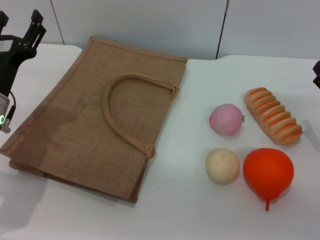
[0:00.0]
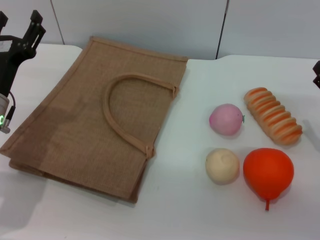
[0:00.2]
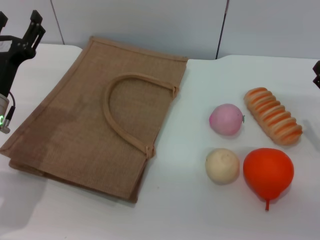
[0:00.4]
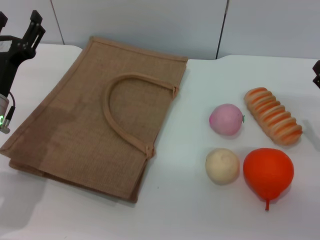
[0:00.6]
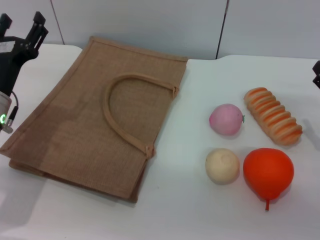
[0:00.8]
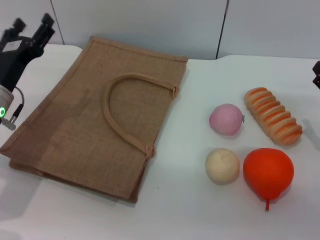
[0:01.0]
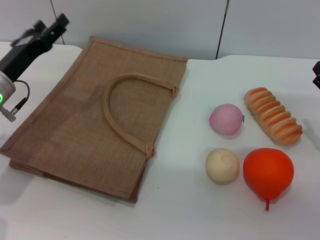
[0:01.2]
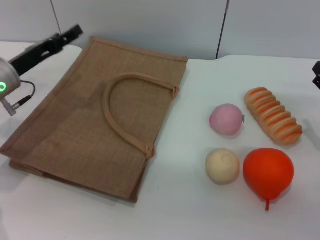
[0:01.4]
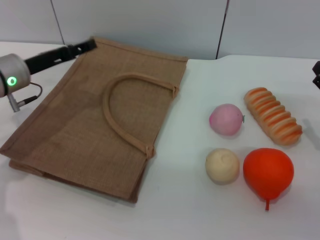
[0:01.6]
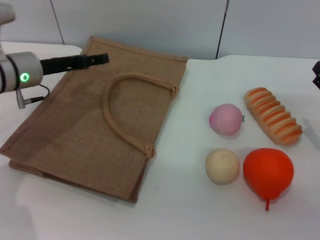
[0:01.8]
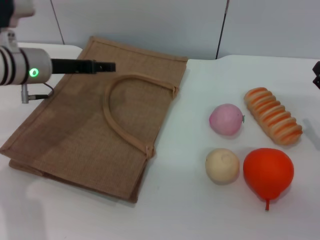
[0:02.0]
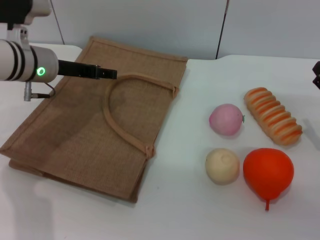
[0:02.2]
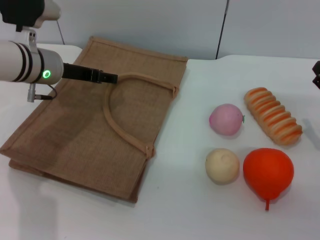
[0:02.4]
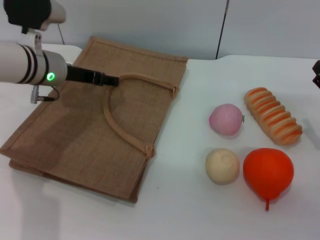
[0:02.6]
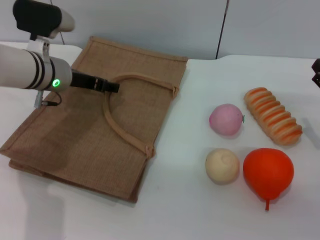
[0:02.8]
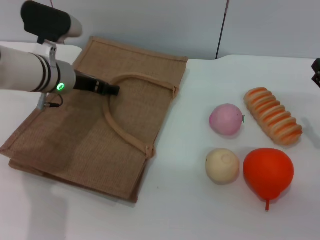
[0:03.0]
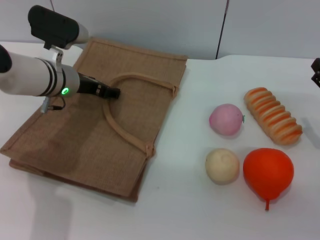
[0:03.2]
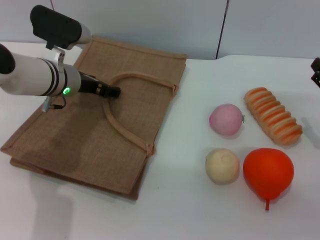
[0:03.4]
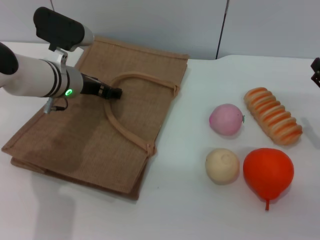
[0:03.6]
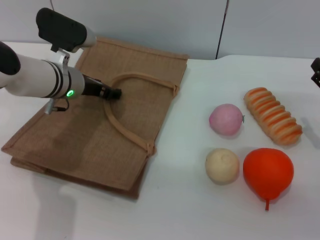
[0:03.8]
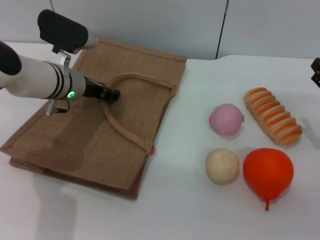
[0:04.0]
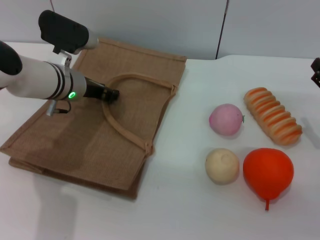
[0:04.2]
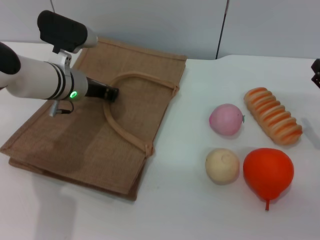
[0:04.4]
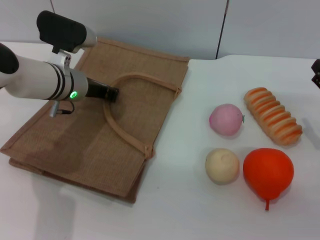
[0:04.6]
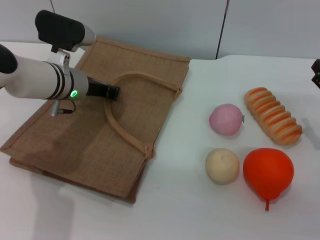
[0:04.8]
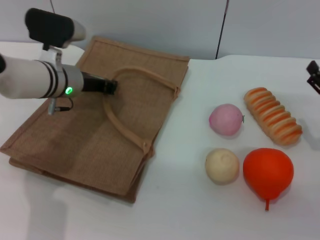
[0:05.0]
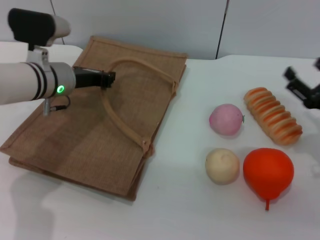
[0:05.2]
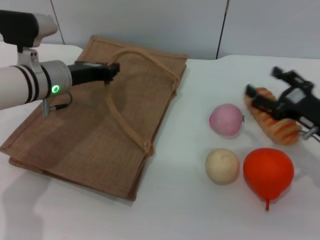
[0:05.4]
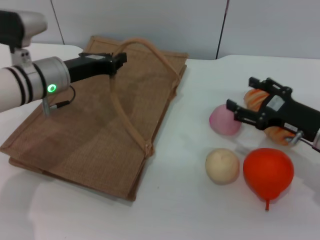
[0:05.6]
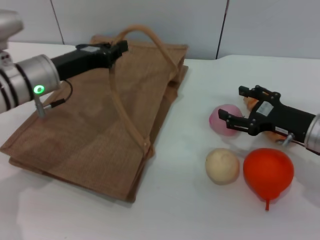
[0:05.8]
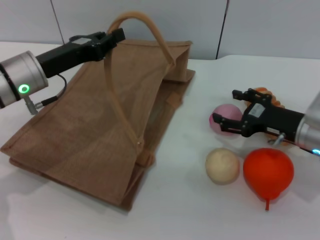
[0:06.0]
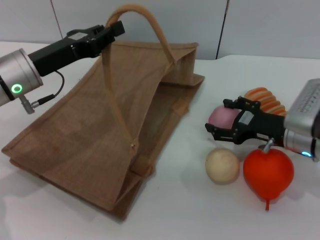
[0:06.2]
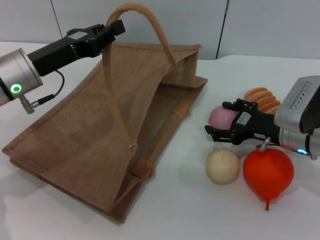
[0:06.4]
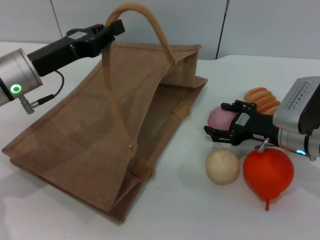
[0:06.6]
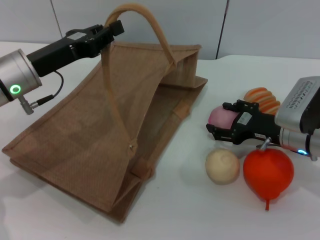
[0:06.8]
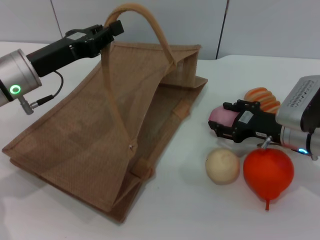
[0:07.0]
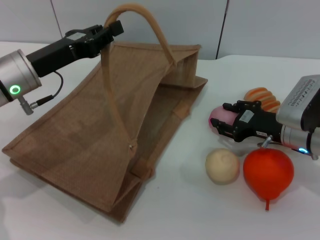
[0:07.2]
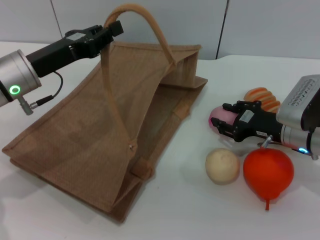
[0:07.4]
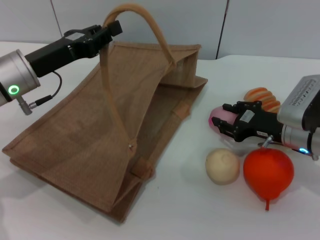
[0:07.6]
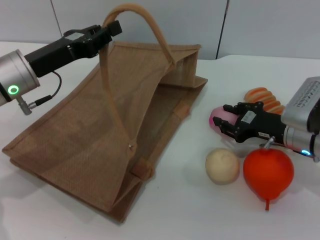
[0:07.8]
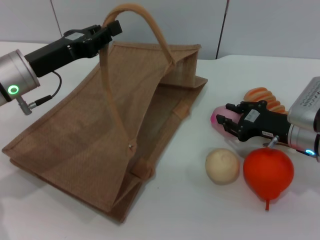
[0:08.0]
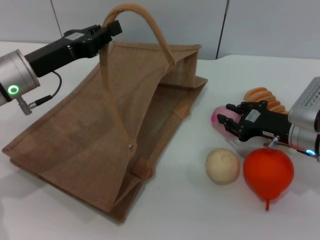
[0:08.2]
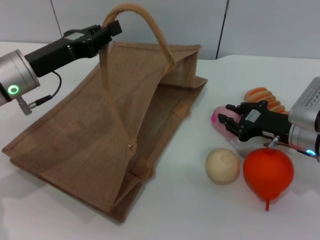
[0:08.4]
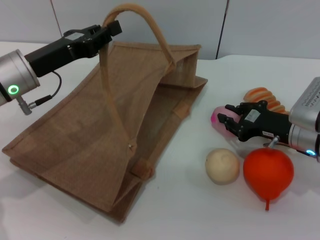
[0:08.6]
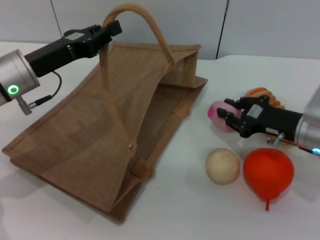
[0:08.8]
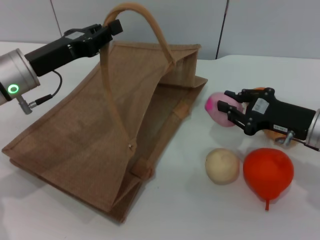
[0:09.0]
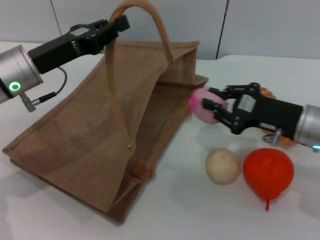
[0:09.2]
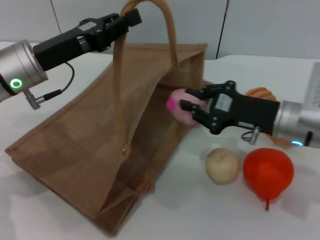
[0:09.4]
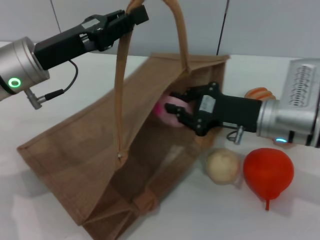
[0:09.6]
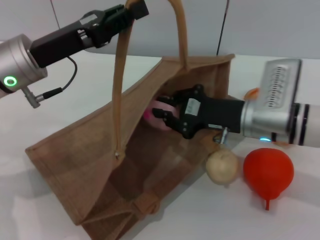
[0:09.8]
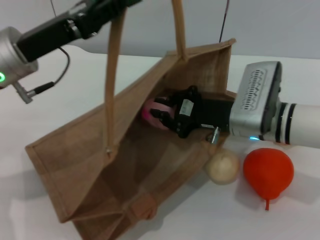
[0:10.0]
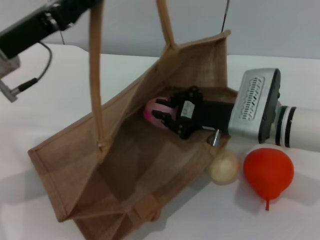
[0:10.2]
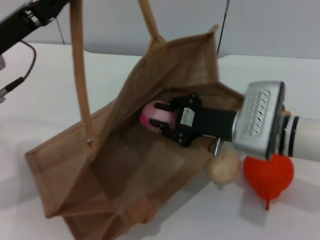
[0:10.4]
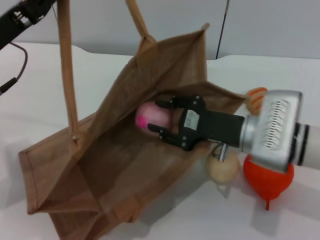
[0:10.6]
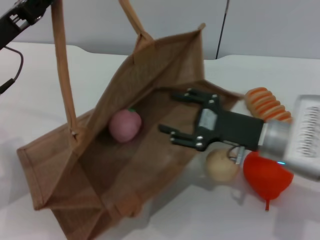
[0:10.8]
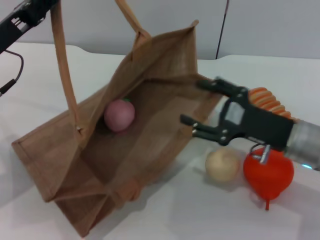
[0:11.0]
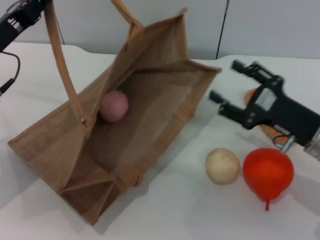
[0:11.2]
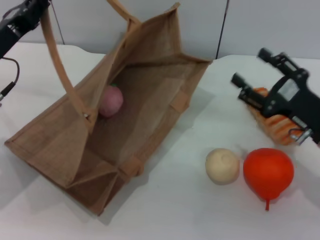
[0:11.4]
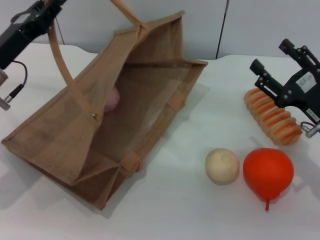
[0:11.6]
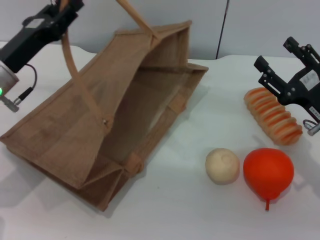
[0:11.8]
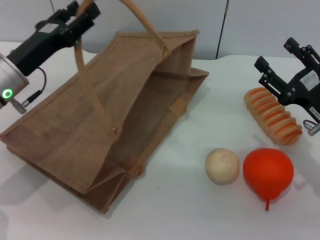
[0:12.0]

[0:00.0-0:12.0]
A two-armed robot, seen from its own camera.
Task of the whole recording: pick up the peach from the table and place it in the brown handbag.
Step, 0:00.0 to 0:04.8: Lift the woven bag with the left gripper to open it.
Step, 0:05.0 to 0:09.0: Pick up the peach with the right gripper.
Step, 0:09.2 to 0:11.0: Place the peach into the woven bag with the right gripper.
0:00.0 to 0:01.6: The left gripper travels forward by roughly 10 cm.
0:01.6 to 0:03.0: The left gripper travels to the right by some 5 cm.
0:03.0 to 0:04.4: The left gripper closes.
0:04.4 to 0:06.0: The left gripper shifts approximately 10 cm backward and to the left, while the right gripper is displaced to the left by about 10 cm.
0:06.0 to 0:07.6: The right gripper closes its fingers.
0:07.6 to 0:09.0: The grippers move only a little.
0:09.0 to 0:10.4: The right gripper shifts roughly 10 cm to the left; the left gripper moves about 5 cm.
0:10.4 to 0:12.0: The right gripper moves to the right, some 10 cm, and opens, while the left gripper heads downward, covering approximately 5 cm, and opens up.

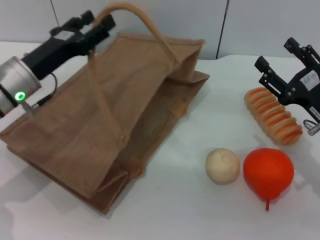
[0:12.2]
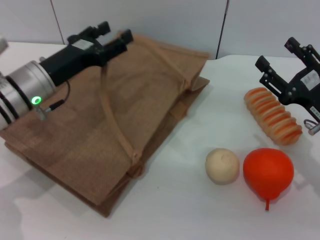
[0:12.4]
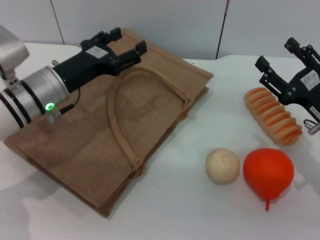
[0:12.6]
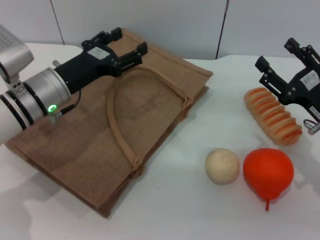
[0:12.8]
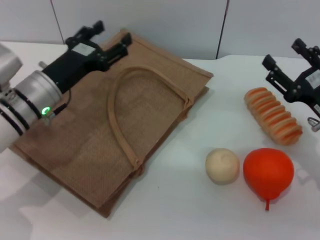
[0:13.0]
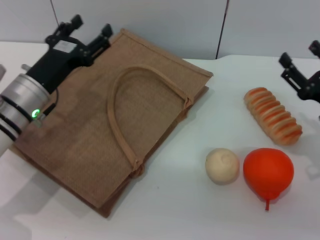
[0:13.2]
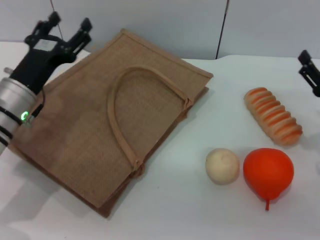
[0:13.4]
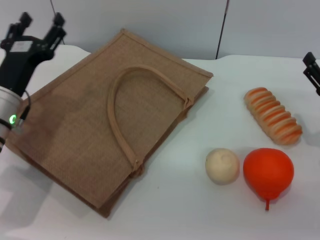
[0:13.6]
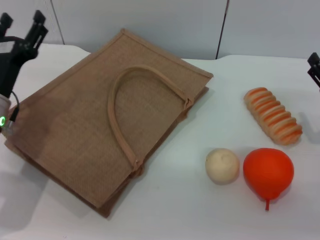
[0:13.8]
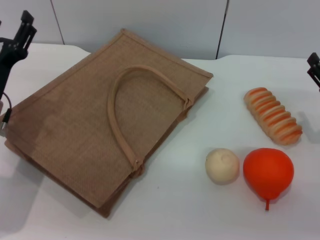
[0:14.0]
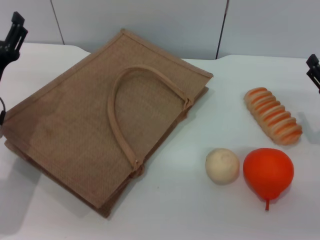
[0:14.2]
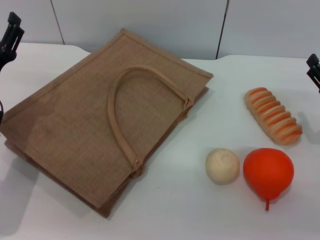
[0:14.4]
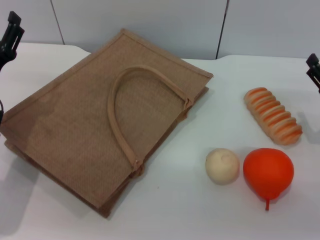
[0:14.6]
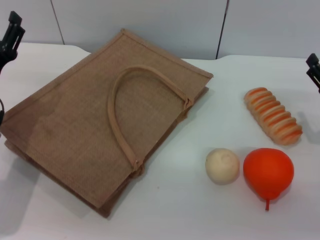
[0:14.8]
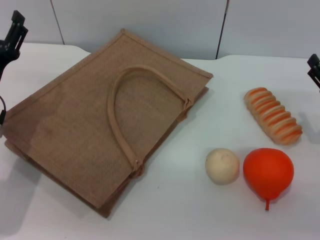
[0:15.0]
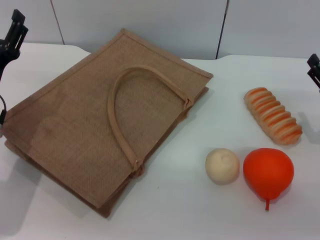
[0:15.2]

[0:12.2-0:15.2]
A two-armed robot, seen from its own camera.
Task of the whole recording: pick up the peach from the table and place it in the brown handbag.
0:12.2 to 0:13.8: The left gripper ends up roughly 5 cm from where it was.
0:13.8 to 0:15.2: There are only small adjustments of the grippers.
